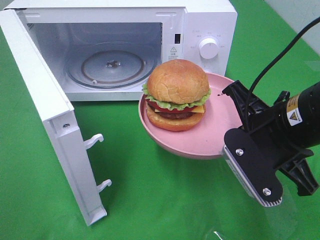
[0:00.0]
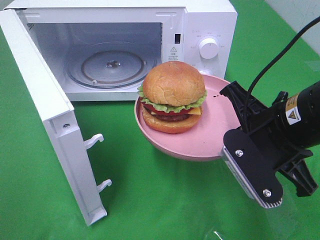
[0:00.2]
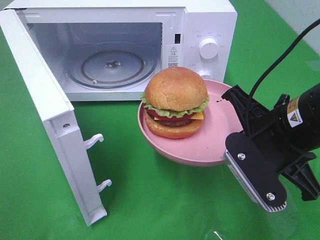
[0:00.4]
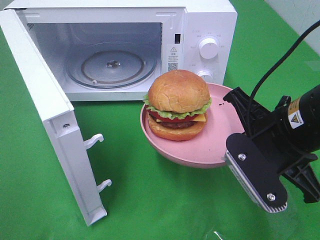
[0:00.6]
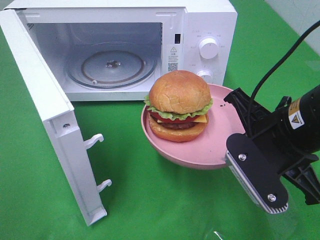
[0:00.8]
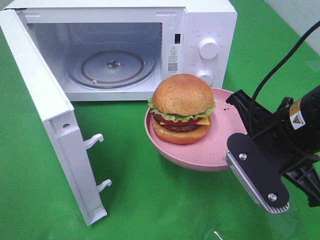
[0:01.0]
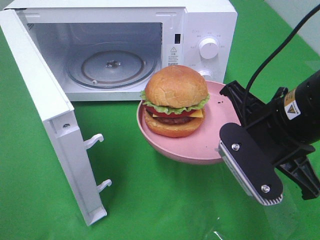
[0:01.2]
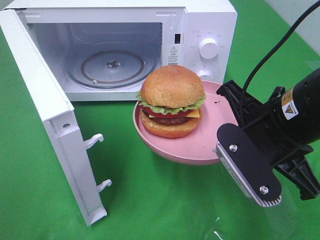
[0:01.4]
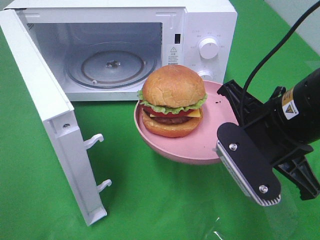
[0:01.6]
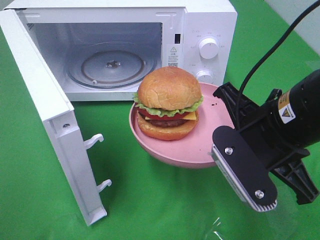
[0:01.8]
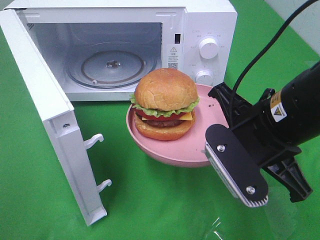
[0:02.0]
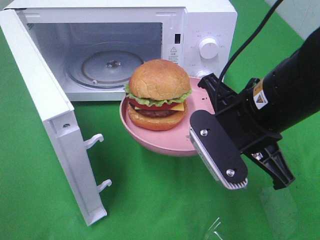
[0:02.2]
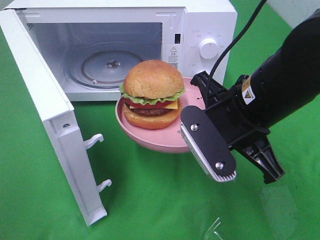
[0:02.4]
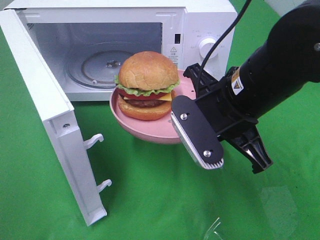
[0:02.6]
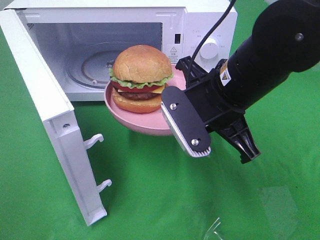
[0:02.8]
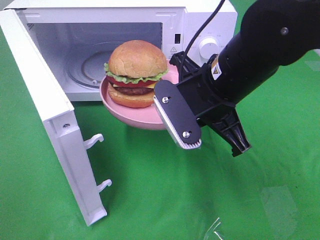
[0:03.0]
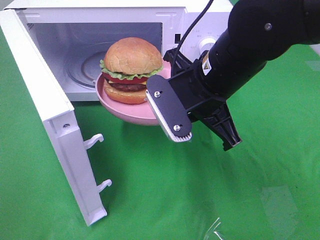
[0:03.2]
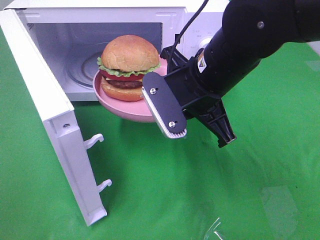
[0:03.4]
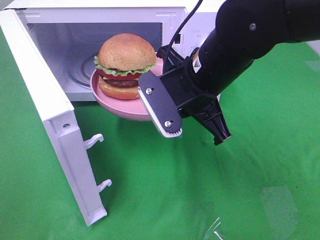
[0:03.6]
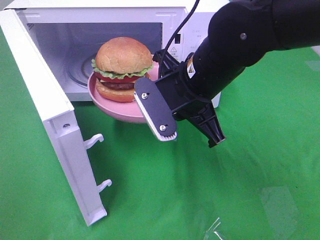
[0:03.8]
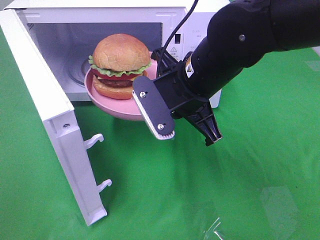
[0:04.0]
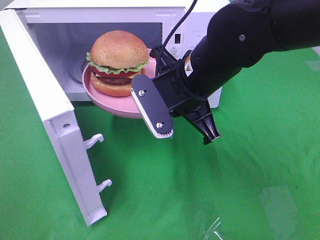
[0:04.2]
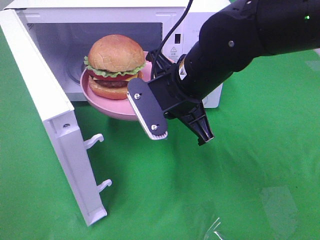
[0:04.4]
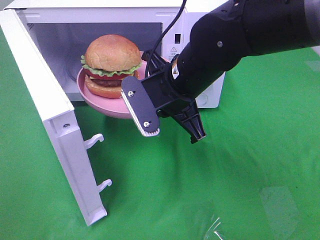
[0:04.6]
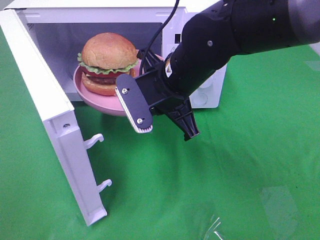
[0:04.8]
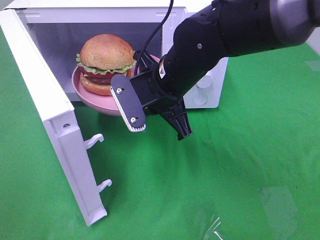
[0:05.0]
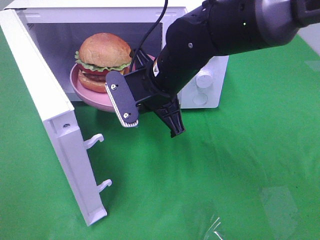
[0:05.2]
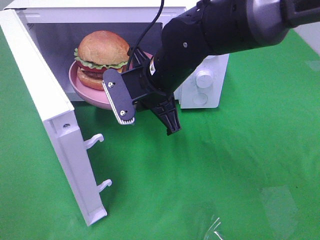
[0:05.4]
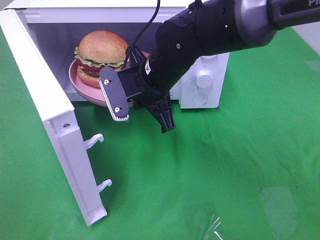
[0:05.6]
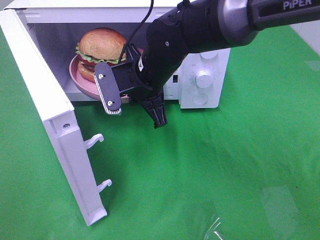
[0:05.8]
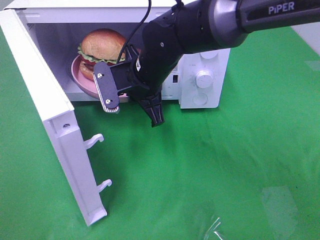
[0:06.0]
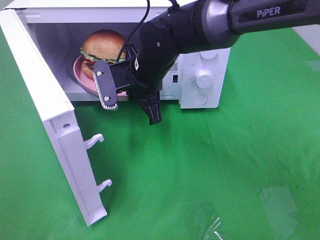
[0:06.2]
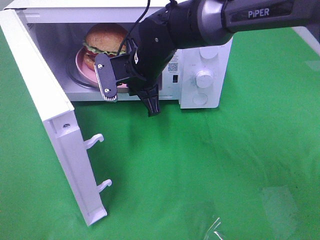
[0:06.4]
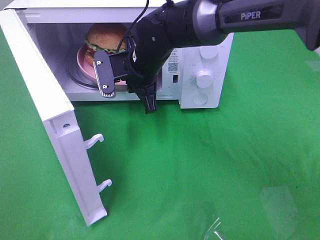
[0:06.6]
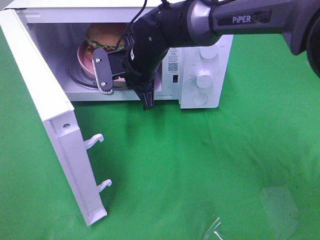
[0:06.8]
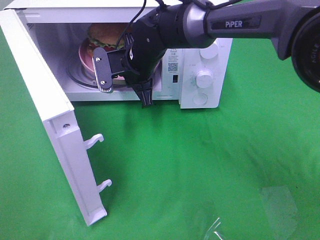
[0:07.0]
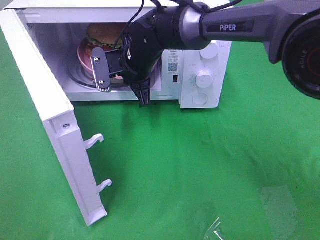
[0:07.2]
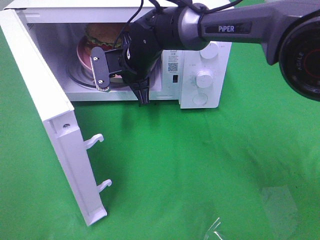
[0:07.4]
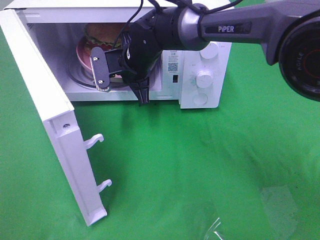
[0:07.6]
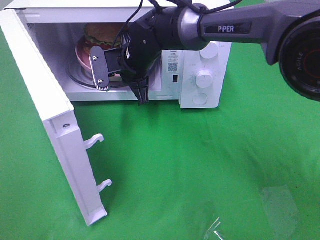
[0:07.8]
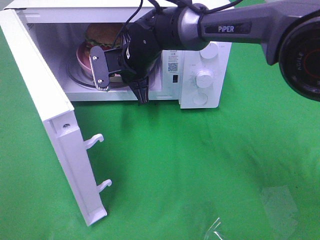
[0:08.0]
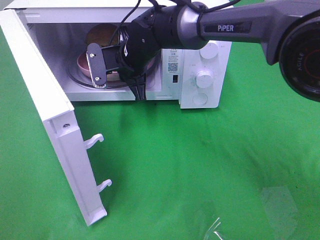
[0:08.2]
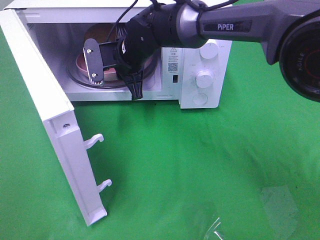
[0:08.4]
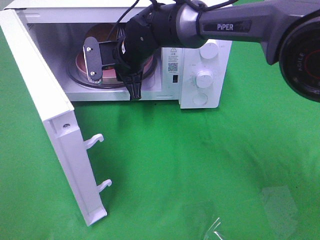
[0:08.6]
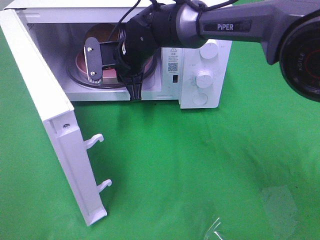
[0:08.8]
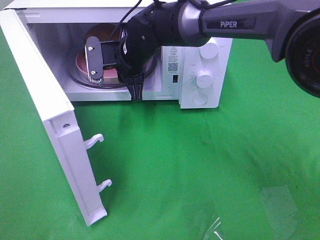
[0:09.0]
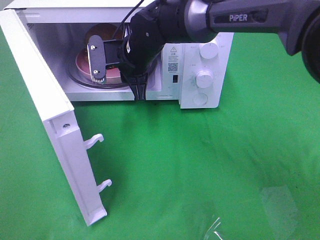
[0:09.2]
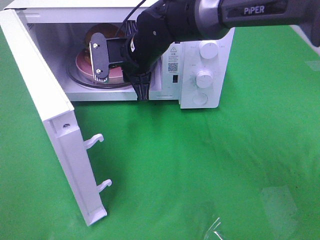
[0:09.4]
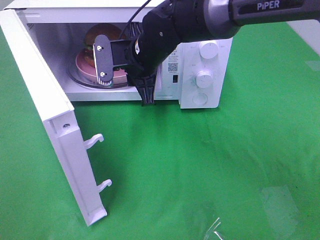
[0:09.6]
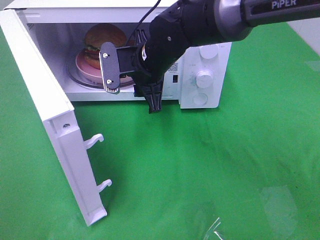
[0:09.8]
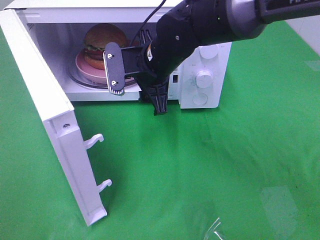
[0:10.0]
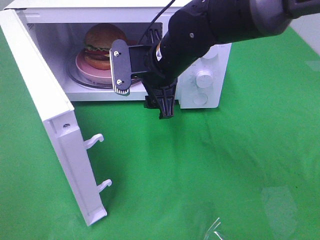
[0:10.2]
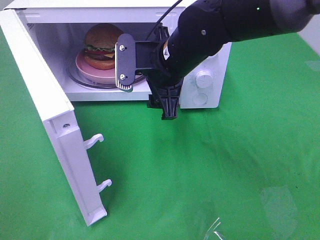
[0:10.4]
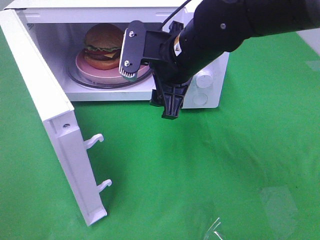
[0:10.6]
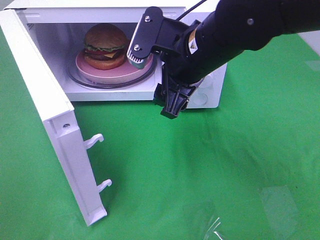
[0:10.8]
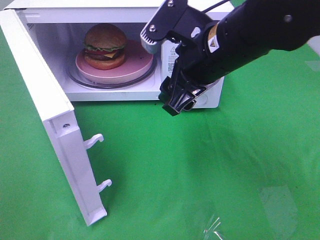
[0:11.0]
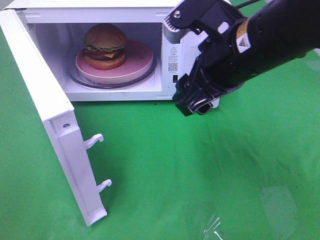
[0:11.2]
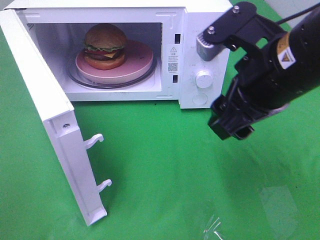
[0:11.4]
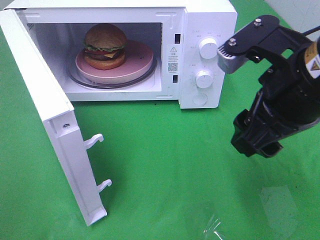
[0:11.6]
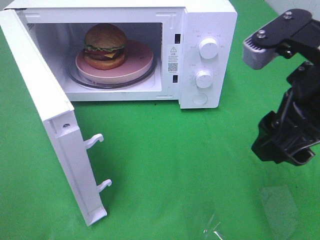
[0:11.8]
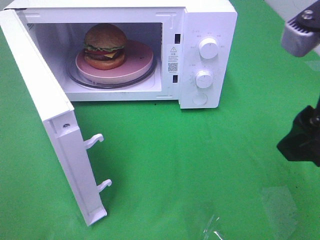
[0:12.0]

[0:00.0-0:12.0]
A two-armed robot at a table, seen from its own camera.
Task of the whole recording: Heat the burger.
Step, 0:00.0 to 0:09.4: Right hand: place the plate in the microwave.
0:00.0 to 0:01.6: The grippers move only a little.
0:01.6 to 0:03.0: The right gripper moves to the left and forward, some 10 cm.
0:03.0 to 0:04.4: The grippers make only small movements.
0:04.4 to 0:06.0: The right gripper is displaced forward and to the left by about 10 cm.
0:06.0 to 0:07.6: The right gripper goes roughly 5 cm forward.
0:07.6 to 0:09.0: The grippers stay close to where they were, moving slightly.
0:09.0 to 0:10.4: The right gripper heads backward and to the right, covering some 10 cm, and opens its fingers.
0:10.4 to 0:12.0: The right gripper heads backward, to the right and upward, covering roughly 25 cm.

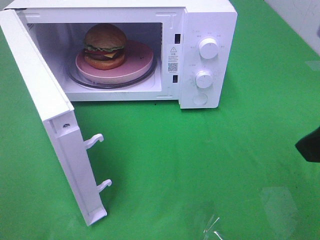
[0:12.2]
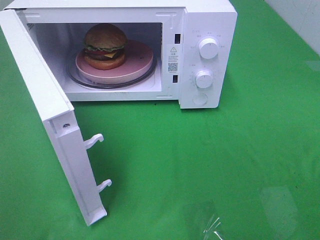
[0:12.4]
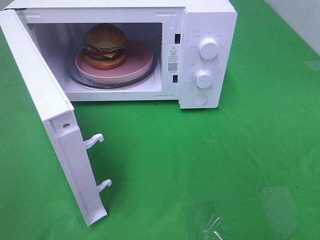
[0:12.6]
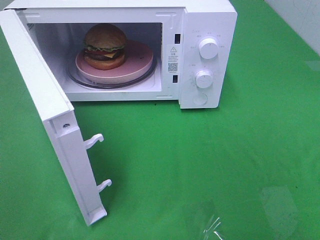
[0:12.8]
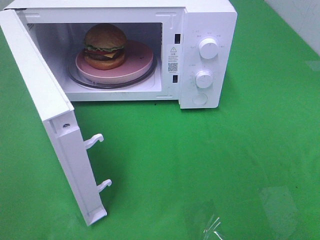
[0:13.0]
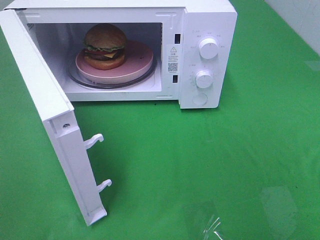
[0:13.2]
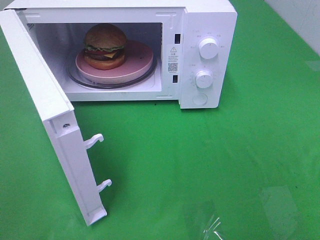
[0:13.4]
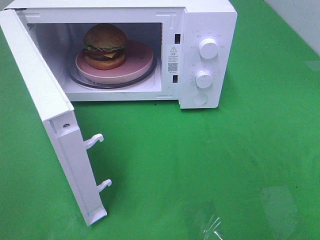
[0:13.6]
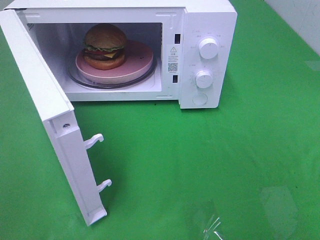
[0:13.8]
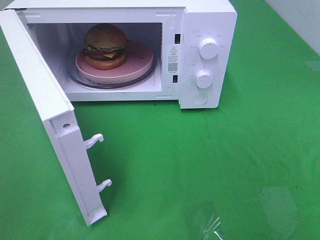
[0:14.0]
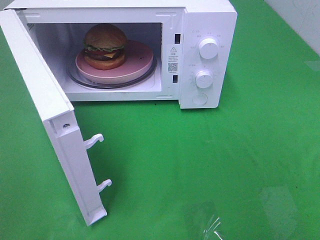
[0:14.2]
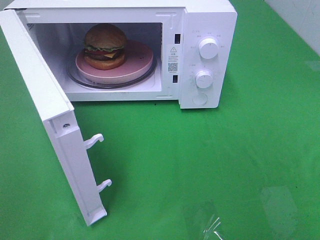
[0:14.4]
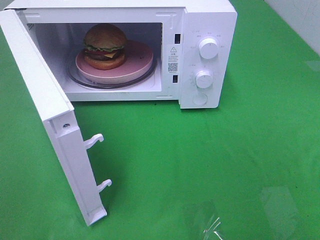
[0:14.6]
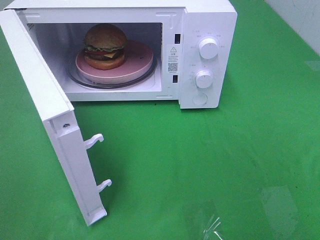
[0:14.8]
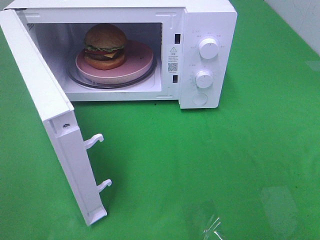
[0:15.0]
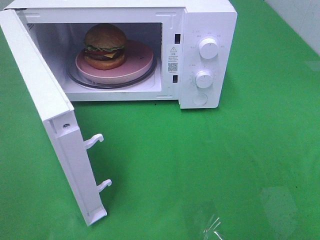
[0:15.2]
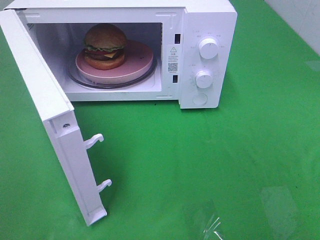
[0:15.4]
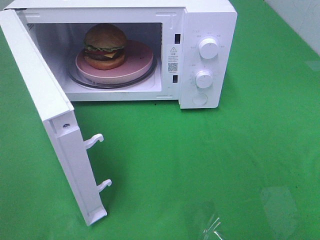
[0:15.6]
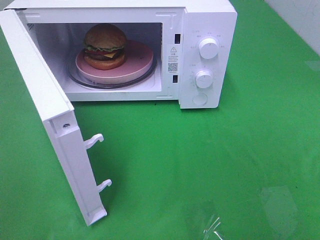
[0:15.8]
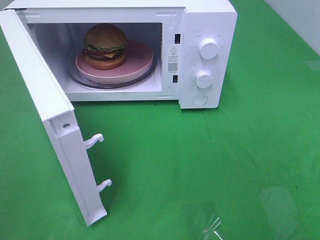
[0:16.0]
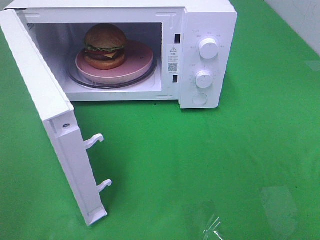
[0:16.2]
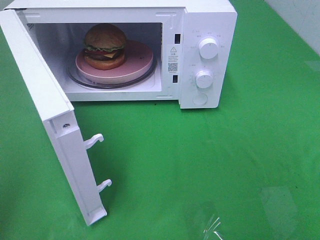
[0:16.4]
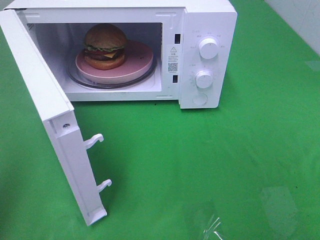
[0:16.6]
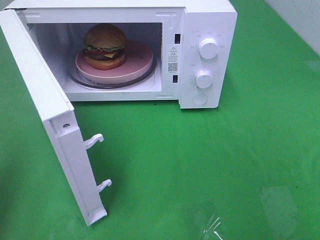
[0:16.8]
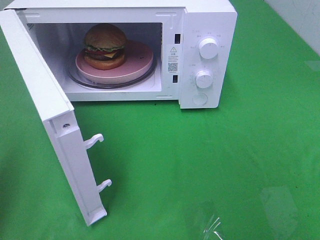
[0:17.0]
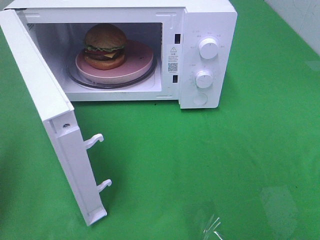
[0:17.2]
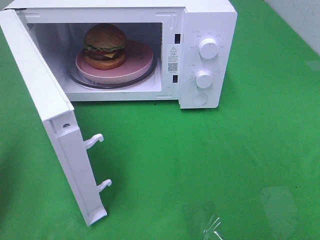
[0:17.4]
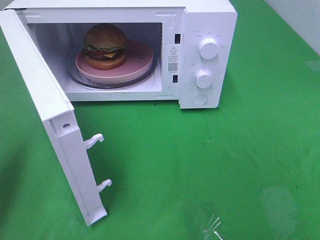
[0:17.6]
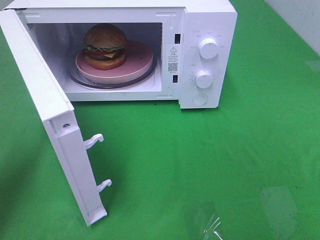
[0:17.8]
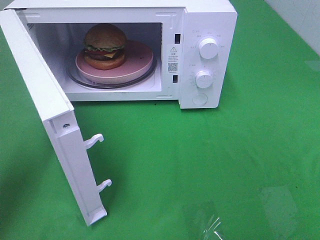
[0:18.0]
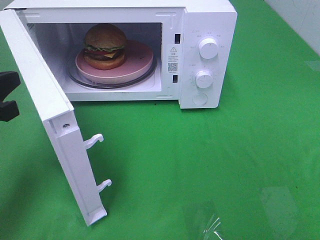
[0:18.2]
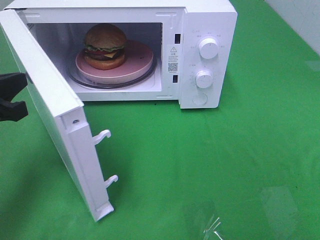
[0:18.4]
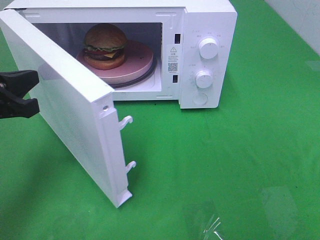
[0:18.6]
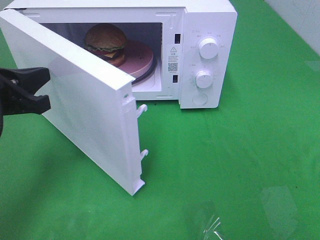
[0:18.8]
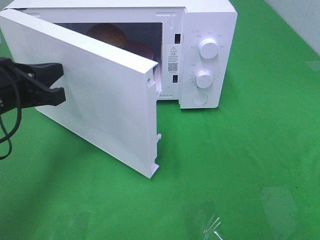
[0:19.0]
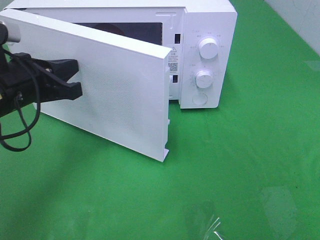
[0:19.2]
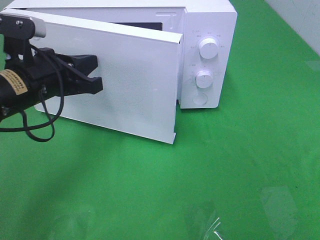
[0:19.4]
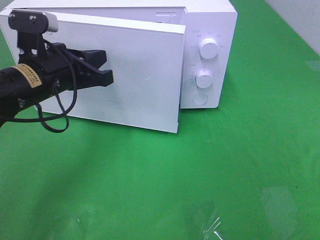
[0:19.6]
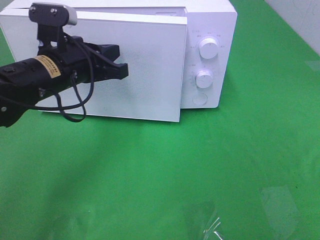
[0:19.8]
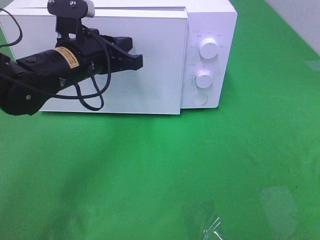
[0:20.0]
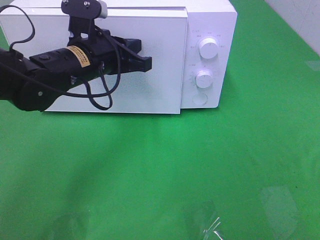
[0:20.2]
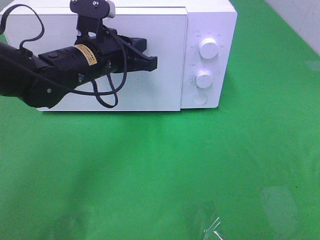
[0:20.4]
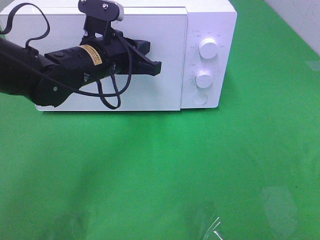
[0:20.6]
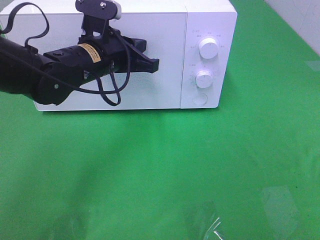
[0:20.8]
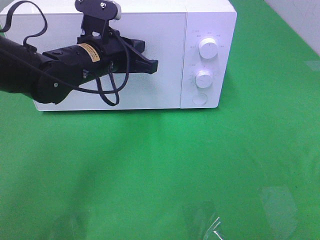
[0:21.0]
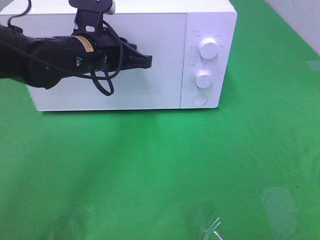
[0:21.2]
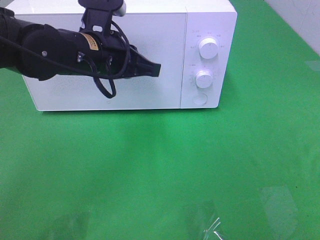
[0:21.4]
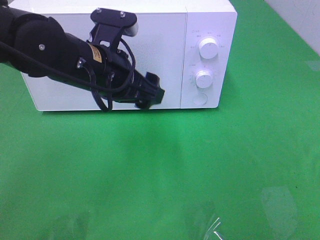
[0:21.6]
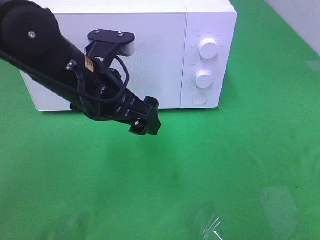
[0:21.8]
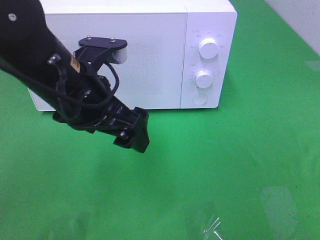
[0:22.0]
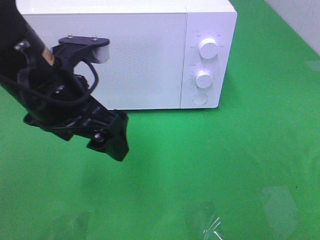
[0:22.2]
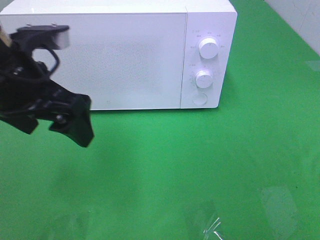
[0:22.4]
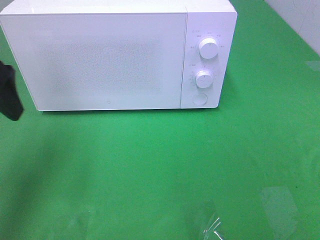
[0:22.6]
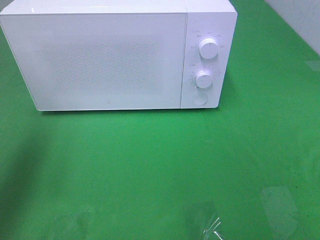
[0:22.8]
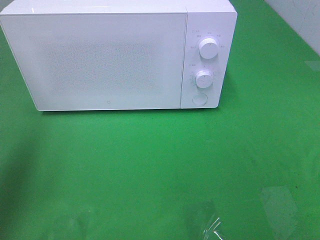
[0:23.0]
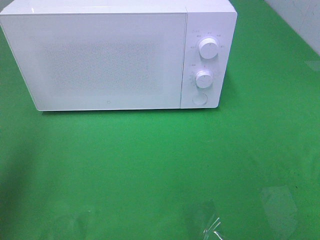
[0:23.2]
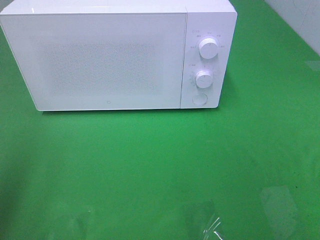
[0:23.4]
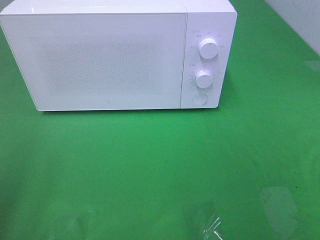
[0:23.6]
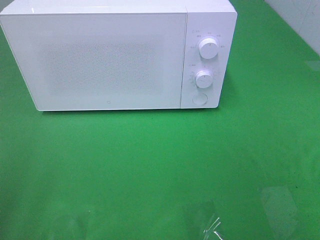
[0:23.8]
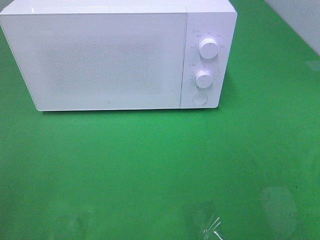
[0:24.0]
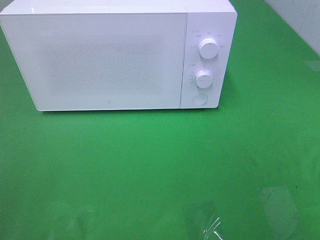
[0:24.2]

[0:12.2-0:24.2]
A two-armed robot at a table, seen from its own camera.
Task of the whole recording: Heat the burger.
Step, 0:12.2 to 0:21.4: Left hand: close the microwave door.
0:12.2 to 0:13.8: The right gripper is displaced backward and to the right by approximately 15 cm.
0:13.8 to 0:15.2: Neither gripper changes place.
0:16.6 to 0:18.2: The left gripper is displaced downward, forward and to the right by roughly 20 cm.
0:18.2 to 0:19.8: The left gripper travels to the right and forward by roughly 15 cm.
0:19.8 to 0:21.2: The left gripper shifts by about 5 cm.
0:21.2 to 0:22.6: The left gripper shifts about 20 cm to the left, backward and upward, and opens its fingers.
0:22.6 to 0:24.2: The left gripper travels backward by some 25 cm.
